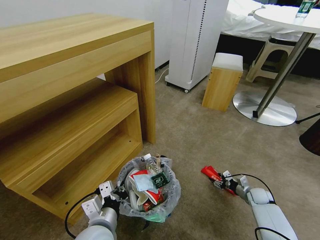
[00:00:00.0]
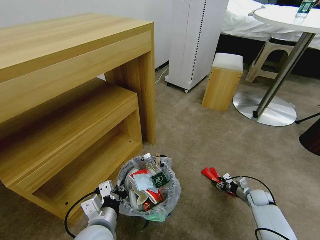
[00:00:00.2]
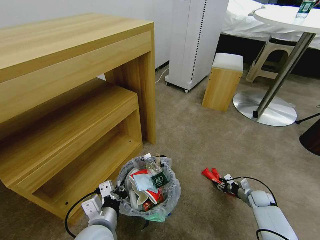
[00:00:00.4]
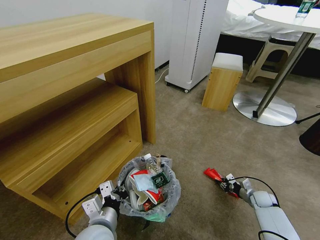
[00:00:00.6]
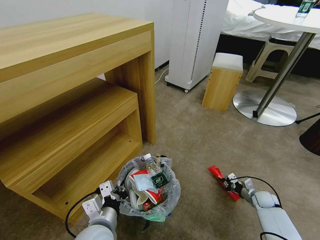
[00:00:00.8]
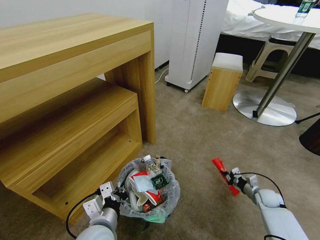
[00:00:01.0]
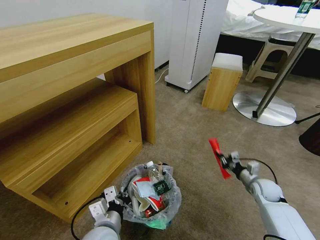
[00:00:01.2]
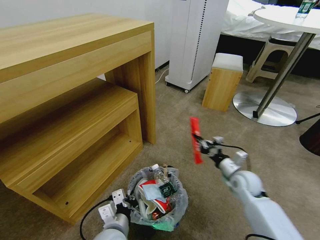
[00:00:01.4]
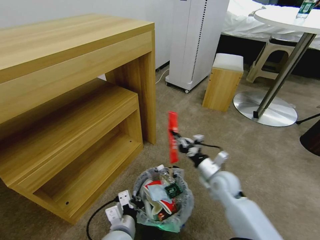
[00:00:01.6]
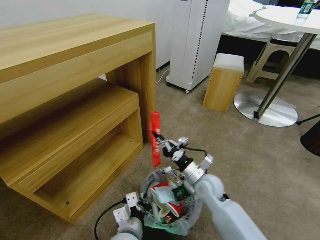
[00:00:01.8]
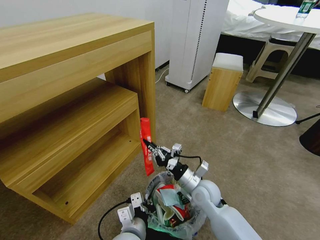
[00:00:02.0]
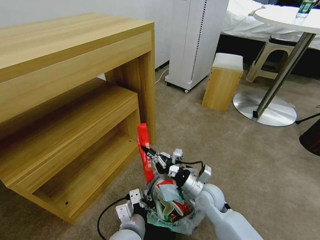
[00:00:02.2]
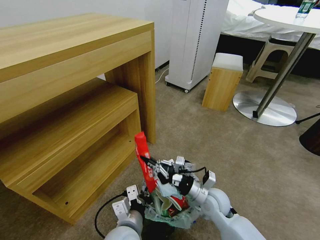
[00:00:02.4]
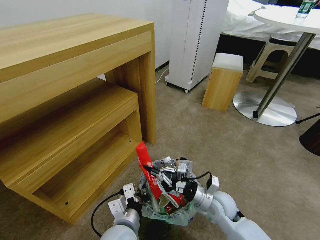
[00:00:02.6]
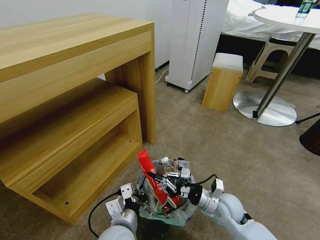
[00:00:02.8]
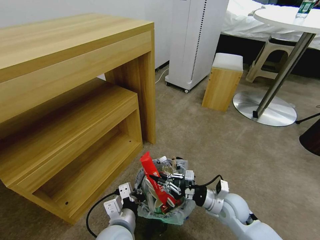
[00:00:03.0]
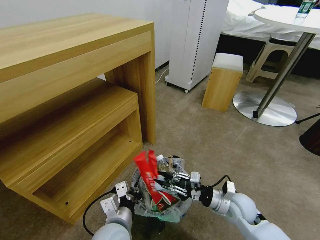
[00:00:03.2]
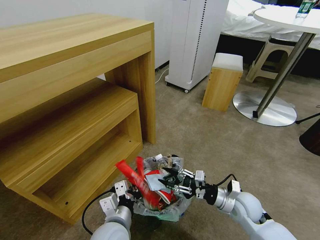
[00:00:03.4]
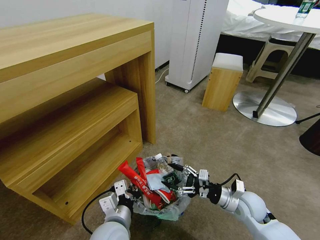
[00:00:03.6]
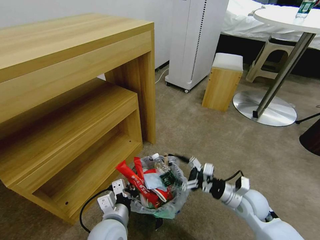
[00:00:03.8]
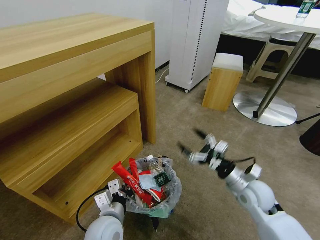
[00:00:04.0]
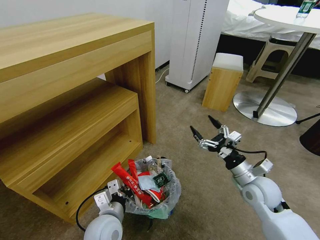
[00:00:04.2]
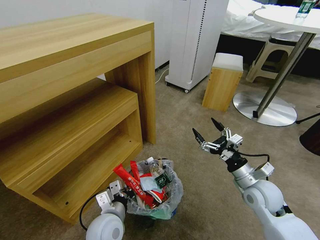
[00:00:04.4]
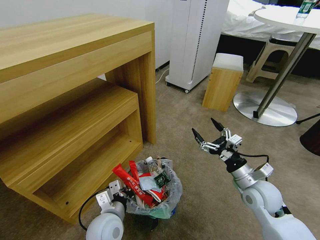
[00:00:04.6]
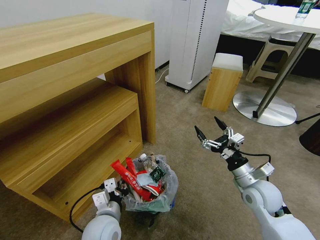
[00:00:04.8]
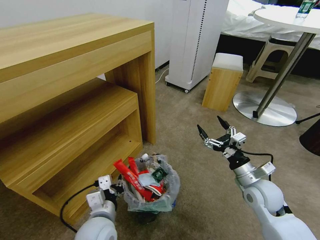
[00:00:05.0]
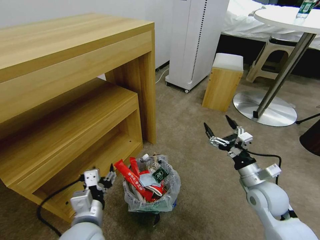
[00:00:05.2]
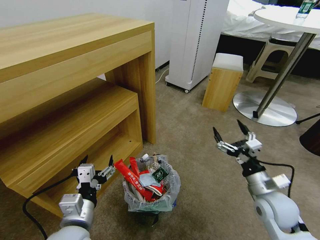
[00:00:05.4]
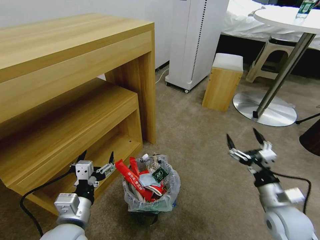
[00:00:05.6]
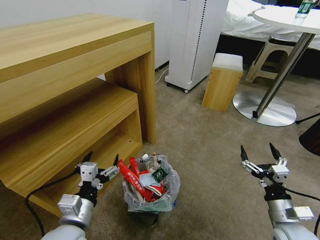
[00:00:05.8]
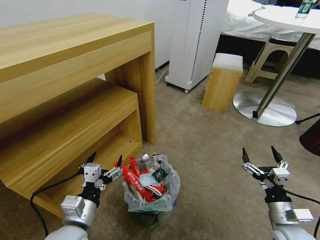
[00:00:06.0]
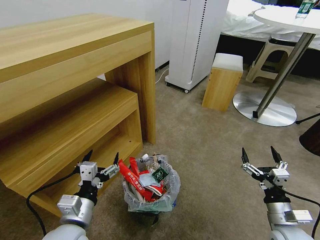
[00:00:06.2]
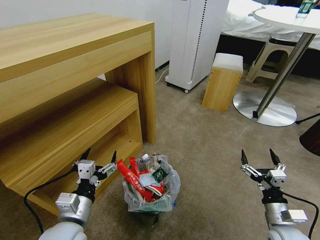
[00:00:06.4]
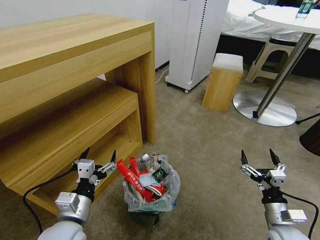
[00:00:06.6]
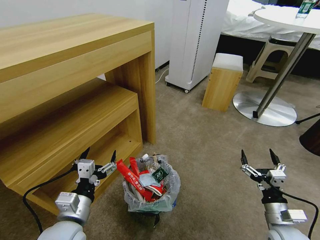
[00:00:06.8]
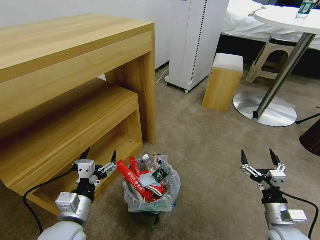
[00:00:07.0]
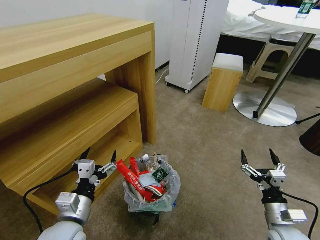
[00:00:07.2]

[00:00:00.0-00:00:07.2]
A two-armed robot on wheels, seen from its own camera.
Task of the whole recording: Pick up the trash bin and place the garbage on the floor into it.
00:00:00.0 to 00:00:01.4: The right gripper heads upward and to the left, covering some 20 cm, and closes, while the left gripper changes place by approximately 5 cm.
00:00:01.4 to 00:00:02.8: The right gripper moves to the left and backward, about 15 cm.
00:00:02.8 to 00:00:04.4: The right gripper moves to the right and upward, roughly 10 cm, and opens its fingers, while the left gripper moves some 5 cm.
00:00:04.4 to 00:00:05.8: The left gripper heads to the left and upward, covering approximately 10 cm, and opens up, while the right gripper travels backward and to the right by roughly 10 cm.
00:00:05.8 to 00:00:07.2: The grippers stay close to where they were, moving slightly.
